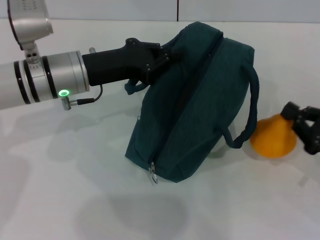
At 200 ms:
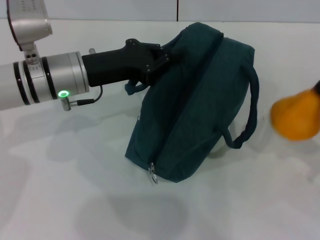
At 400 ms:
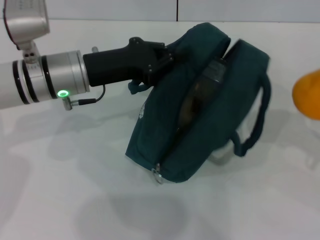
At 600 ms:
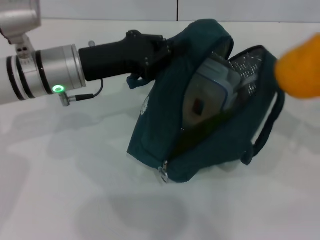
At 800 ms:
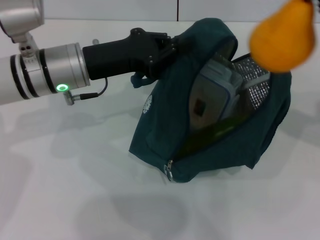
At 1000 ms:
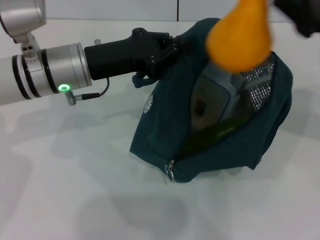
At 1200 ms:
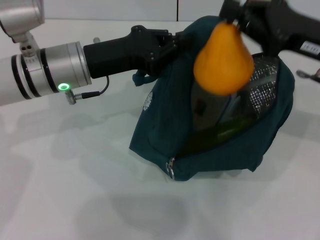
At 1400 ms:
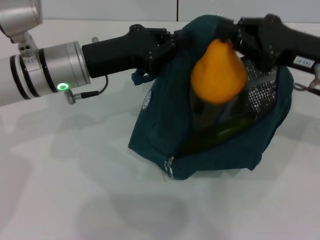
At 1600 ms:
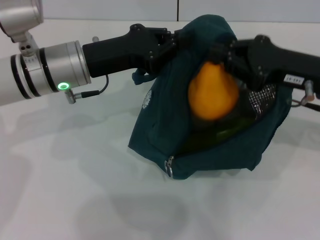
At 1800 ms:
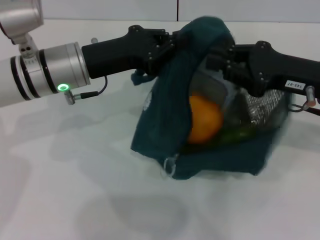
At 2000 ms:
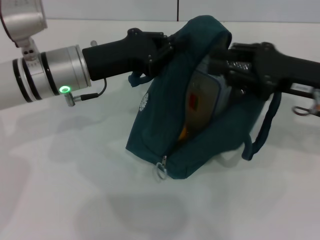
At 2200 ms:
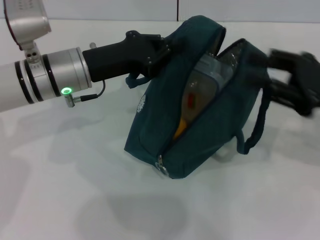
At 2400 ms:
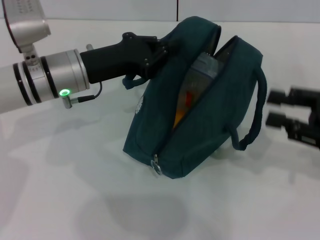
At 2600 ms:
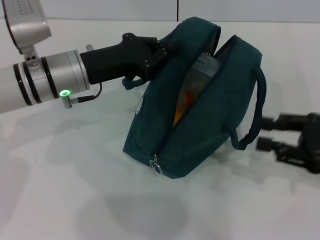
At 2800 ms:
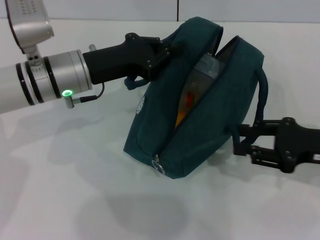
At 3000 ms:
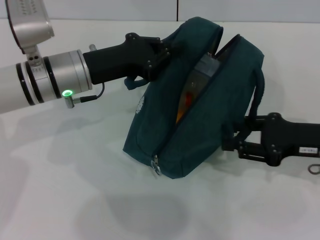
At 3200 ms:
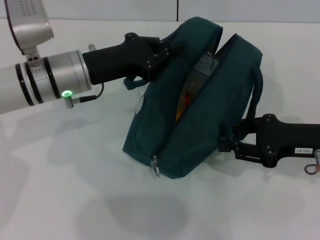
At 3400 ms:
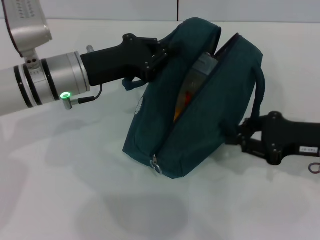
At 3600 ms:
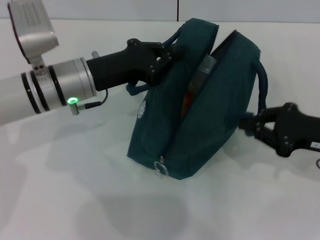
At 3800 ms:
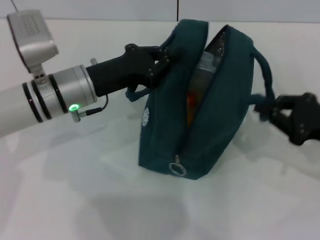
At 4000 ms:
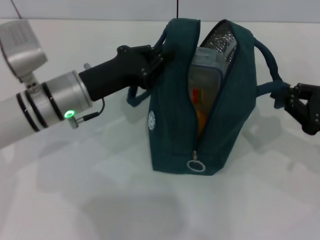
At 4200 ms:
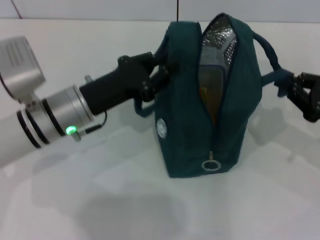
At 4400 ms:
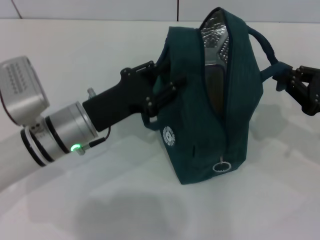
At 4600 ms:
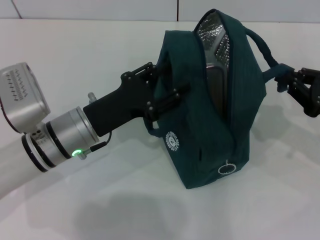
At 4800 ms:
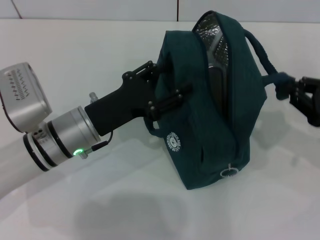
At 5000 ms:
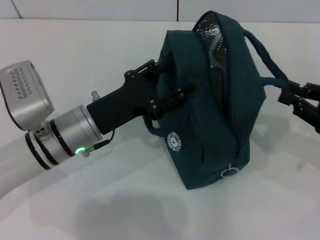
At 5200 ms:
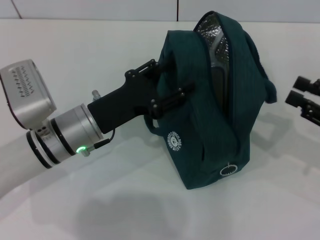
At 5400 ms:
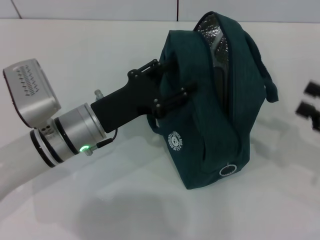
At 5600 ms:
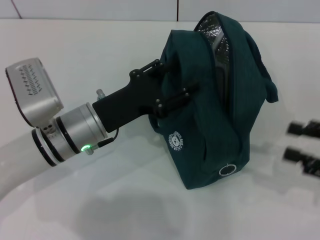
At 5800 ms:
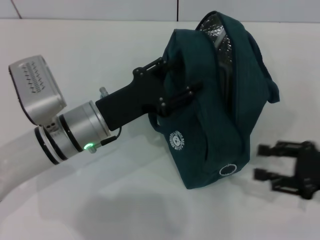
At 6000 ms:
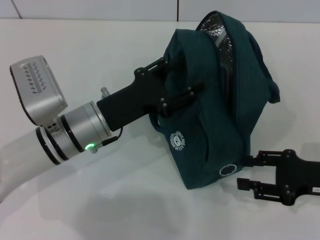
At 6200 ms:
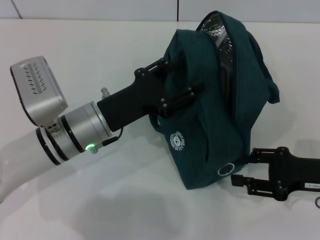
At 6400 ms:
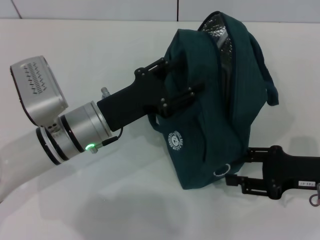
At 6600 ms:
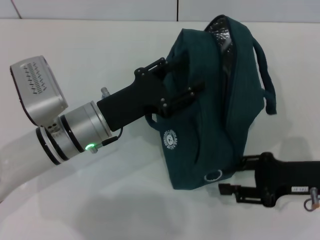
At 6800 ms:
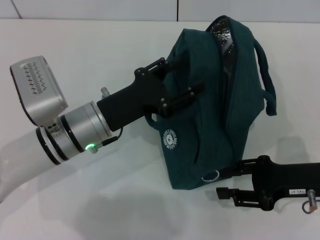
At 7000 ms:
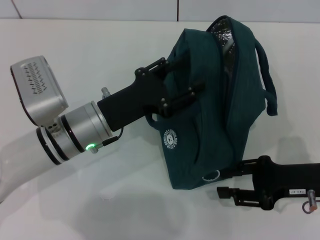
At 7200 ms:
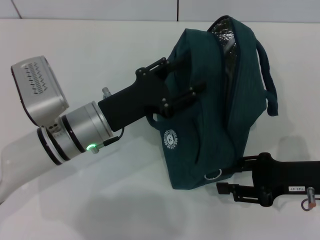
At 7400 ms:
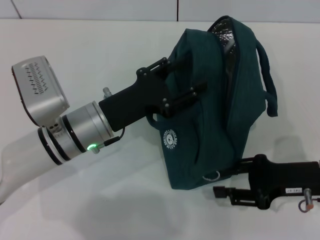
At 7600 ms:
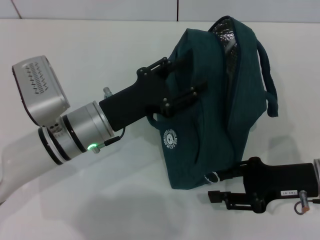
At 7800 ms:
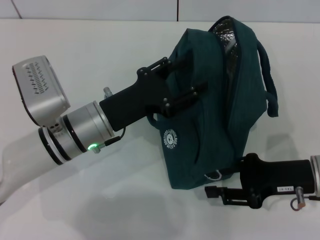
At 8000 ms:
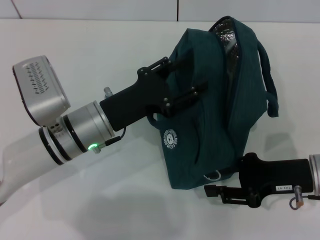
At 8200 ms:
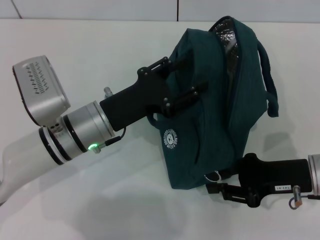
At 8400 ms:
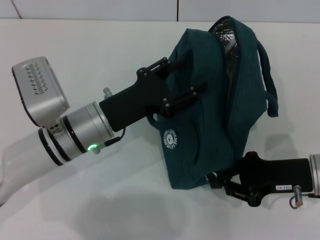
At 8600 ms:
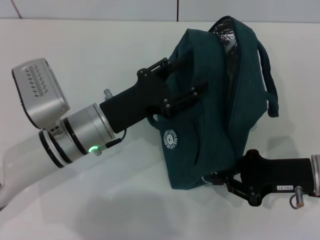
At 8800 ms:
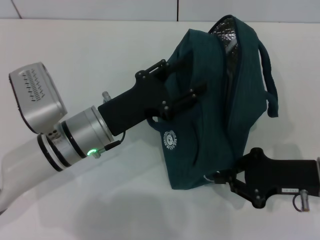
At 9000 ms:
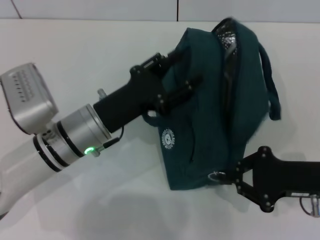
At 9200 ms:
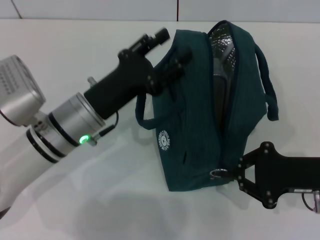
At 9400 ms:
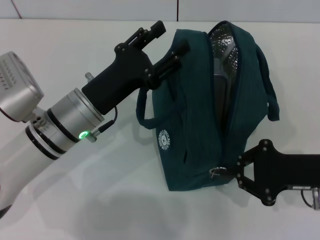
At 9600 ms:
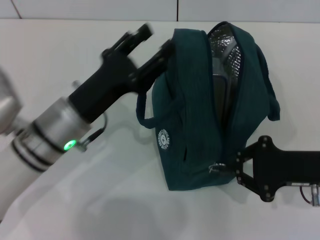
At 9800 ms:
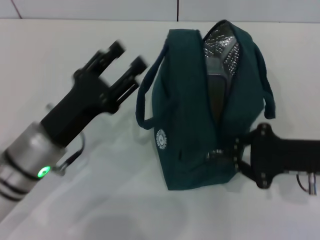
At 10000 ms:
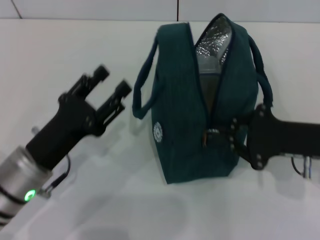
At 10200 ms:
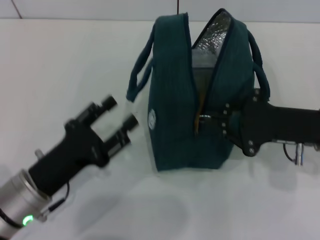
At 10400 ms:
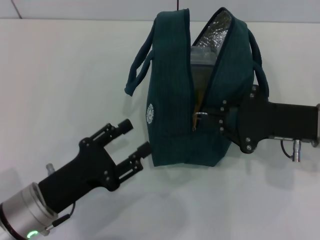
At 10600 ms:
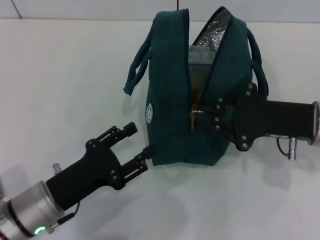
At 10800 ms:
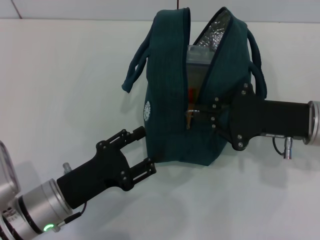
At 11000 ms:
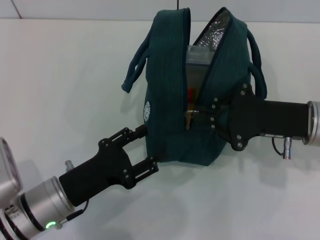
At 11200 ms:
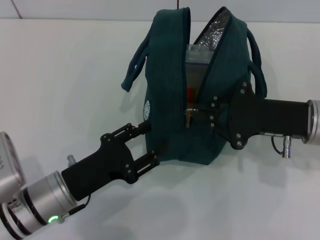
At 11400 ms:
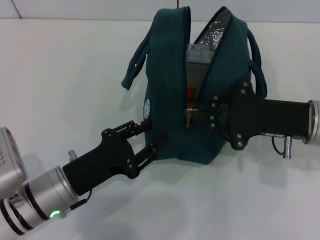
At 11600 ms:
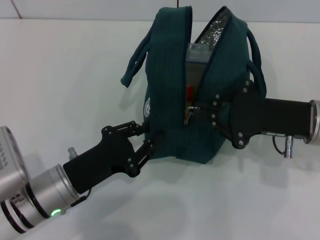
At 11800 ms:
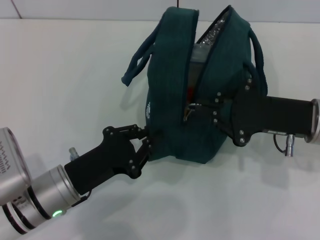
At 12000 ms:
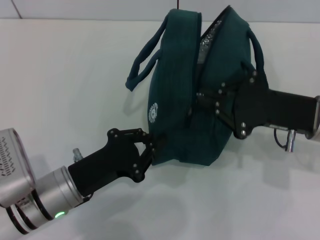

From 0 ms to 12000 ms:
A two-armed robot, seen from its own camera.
Step, from 2200 ms to 5000 ms: Hold the lunch bag with your right hand.
From 0 ms to 1600 ms: The right gripper travels upward, forward and to the left by approximately 15 cm.
From 1600 ms to 3000 ms: The right gripper moves downward, roughly 5 cm, and opens its fingers.
From 3000 ms to 4400 ms: The left gripper moves backward and downward, about 10 cm.
From 4400 ms to 6000 ms: The left gripper opens up. Meanwhile the right gripper moves approximately 5 cm, and opens.
From 6000 ms to 7600 ms: There are only small adjustments of the grippers.
From 7600 ms to 9000 ms: The right gripper closes up.
From 9000 ms to 10400 ms: The right gripper changes place by roughly 5 cm, while the left gripper travels backward and to the left by some 10 cm.
From 10400 ms to 12000 ms: The left gripper closes its fingers.

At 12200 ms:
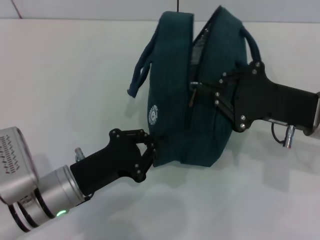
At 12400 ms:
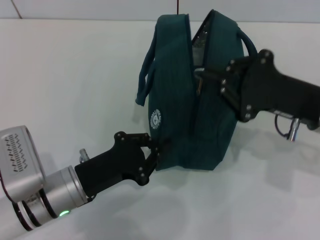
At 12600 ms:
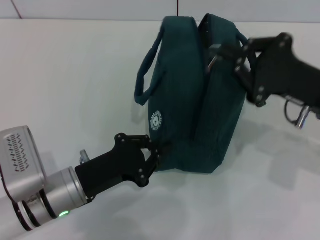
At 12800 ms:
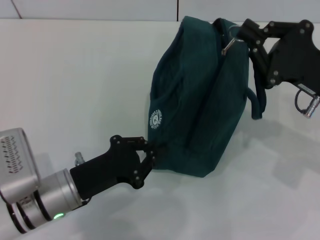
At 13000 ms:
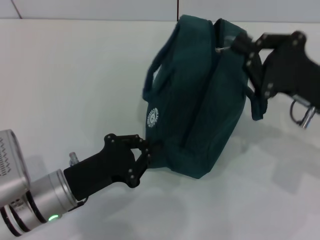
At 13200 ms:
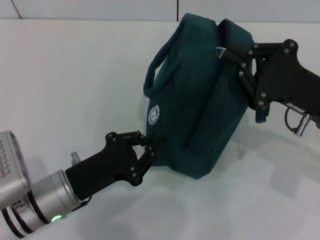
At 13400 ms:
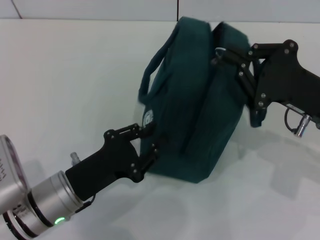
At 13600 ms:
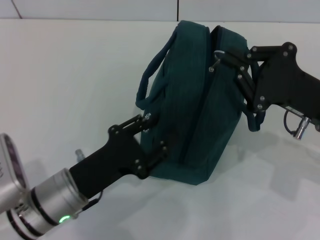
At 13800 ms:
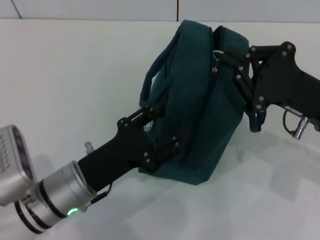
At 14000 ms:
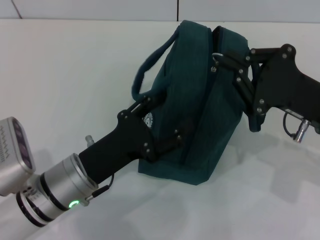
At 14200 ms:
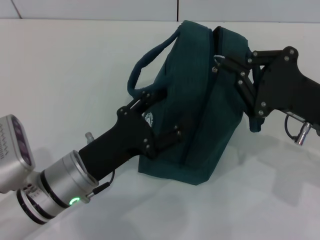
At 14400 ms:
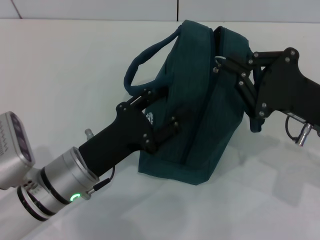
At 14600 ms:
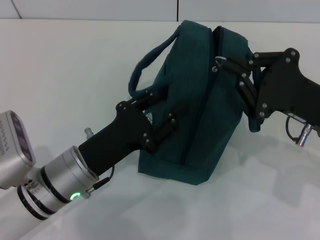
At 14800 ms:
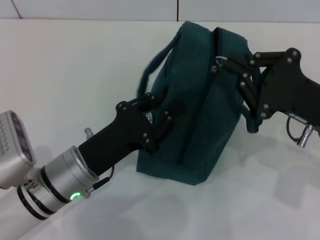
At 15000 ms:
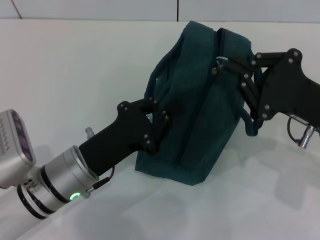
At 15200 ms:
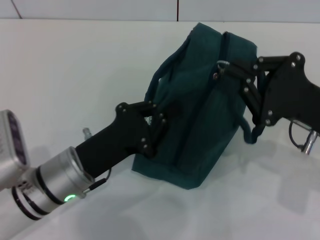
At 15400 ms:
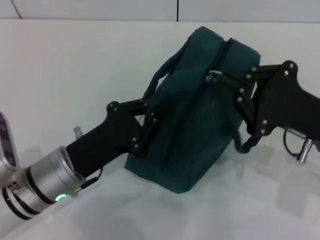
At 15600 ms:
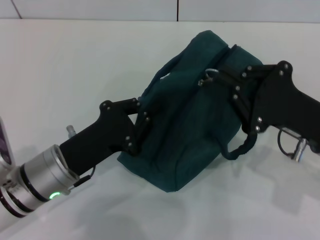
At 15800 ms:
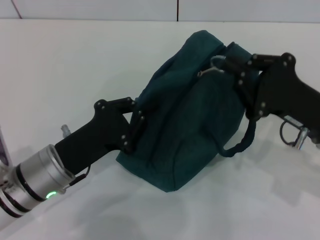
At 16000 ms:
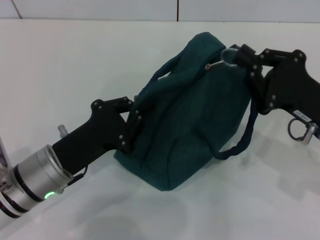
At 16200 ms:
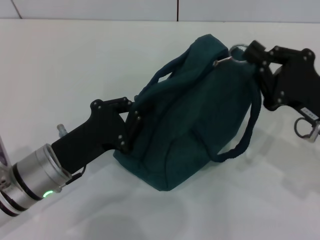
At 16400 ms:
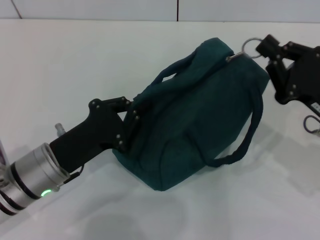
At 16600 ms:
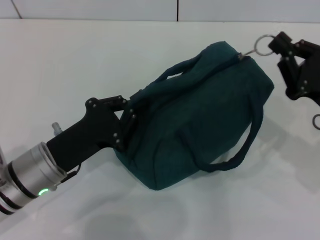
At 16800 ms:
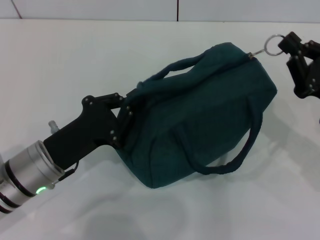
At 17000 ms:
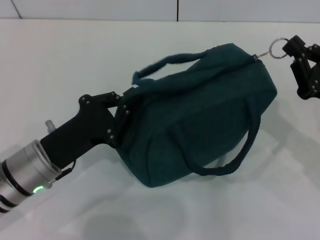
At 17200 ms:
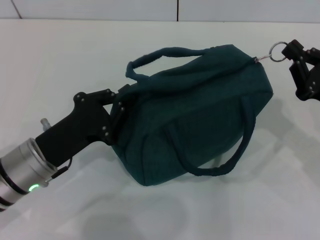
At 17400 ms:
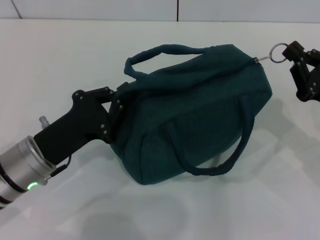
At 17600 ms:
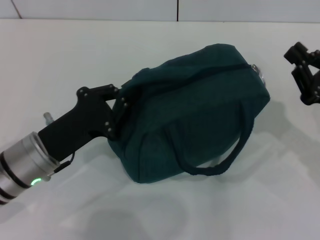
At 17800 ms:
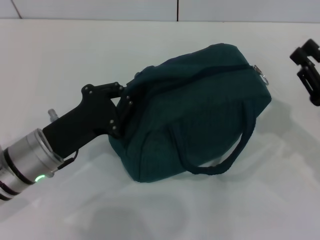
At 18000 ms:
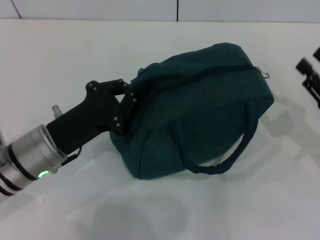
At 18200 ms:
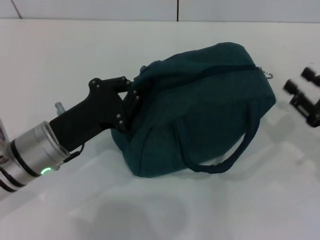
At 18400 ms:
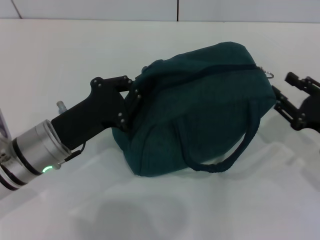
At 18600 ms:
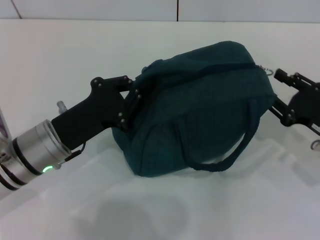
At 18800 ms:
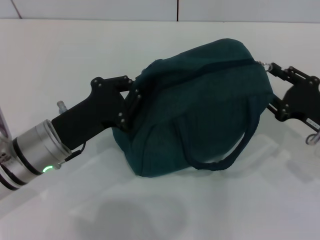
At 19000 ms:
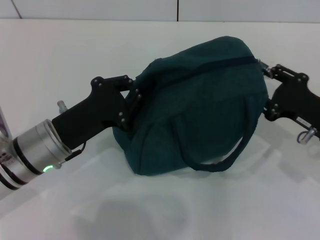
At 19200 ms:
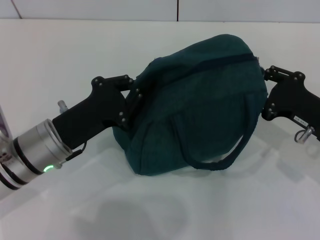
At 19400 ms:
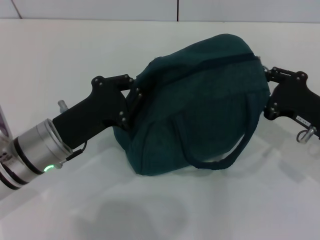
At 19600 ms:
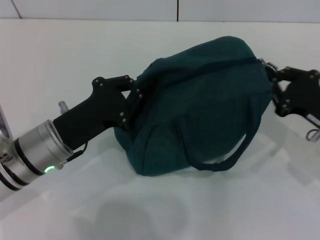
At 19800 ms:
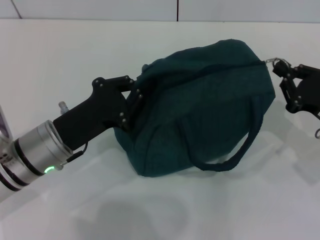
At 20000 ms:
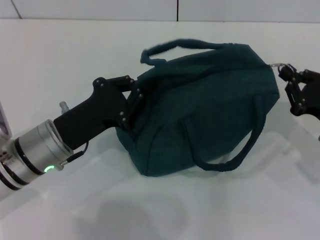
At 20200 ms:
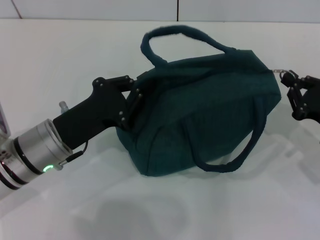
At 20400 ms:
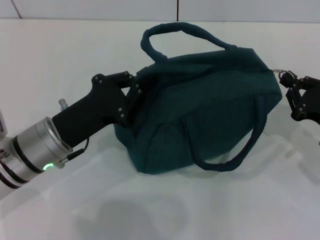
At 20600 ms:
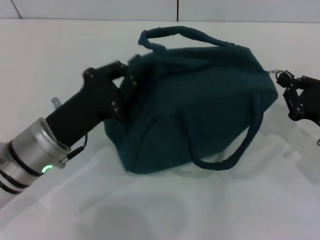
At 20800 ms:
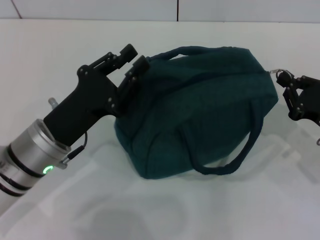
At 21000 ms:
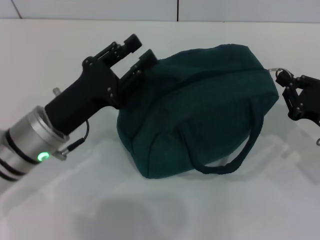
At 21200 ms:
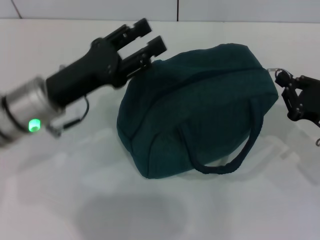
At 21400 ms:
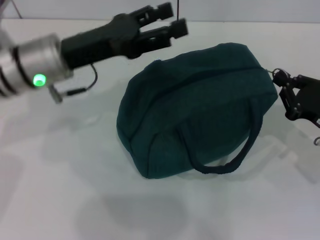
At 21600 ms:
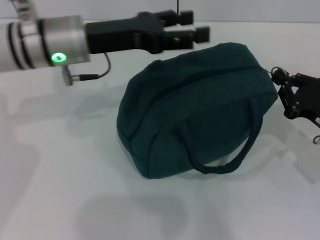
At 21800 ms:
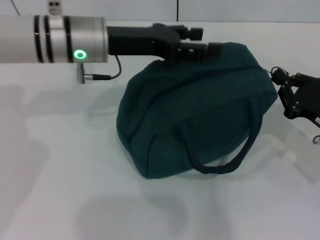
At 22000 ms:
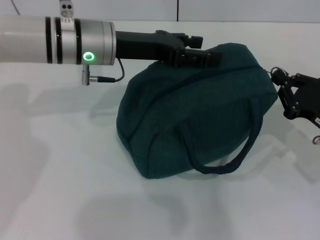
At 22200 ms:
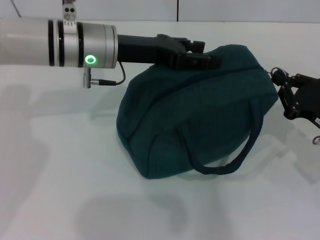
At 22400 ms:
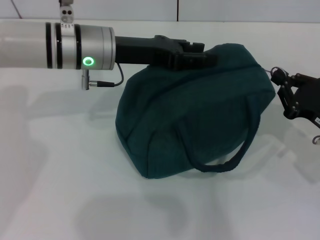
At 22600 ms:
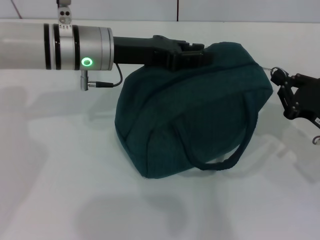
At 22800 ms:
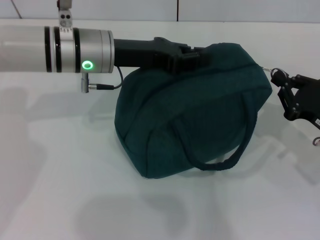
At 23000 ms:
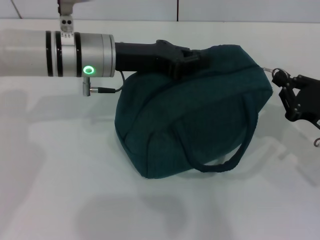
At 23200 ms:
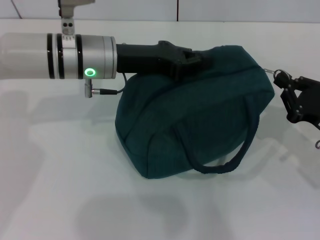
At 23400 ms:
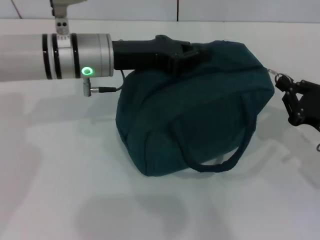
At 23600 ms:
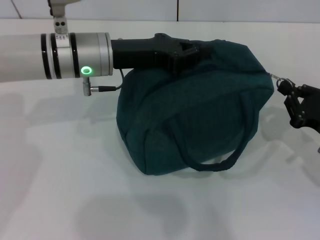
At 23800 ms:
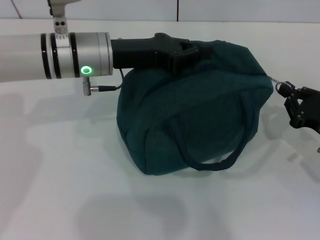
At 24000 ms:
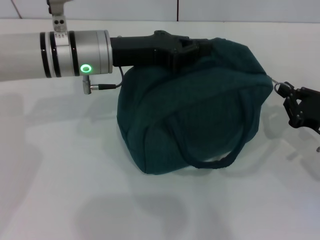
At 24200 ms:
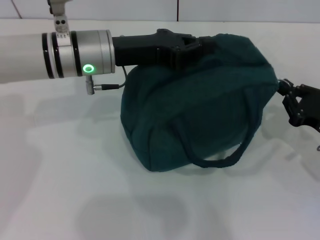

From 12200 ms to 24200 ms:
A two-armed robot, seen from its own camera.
From 12200 ms to 13800 ms: The left gripper opens.
From 13800 ms to 15200 ms: The left gripper closes.
From 16600 ms to 18200 ms: The right gripper ends up roughly 5 cm from where it was, and opens its fingers.
From 18200 ms to 19800 ms: The right gripper closes its fingers.
From 19800 ms to 21200 ms: The left gripper moves roughly 5 cm, and opens.
From 21200 ms to 22600 ms: The left gripper travels forward and to the right by some 10 cm.
From 22600 ms to 24200 ms: The left gripper closes.
